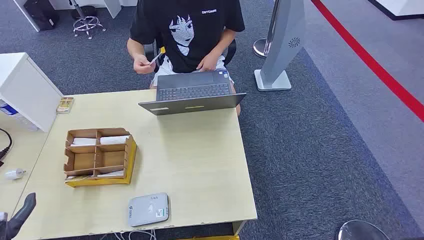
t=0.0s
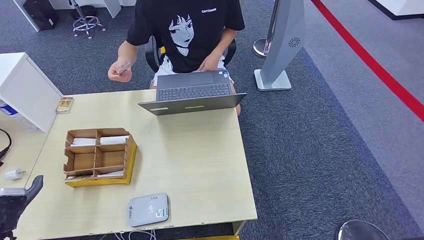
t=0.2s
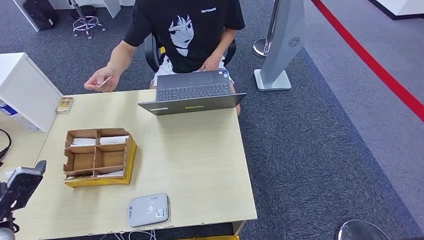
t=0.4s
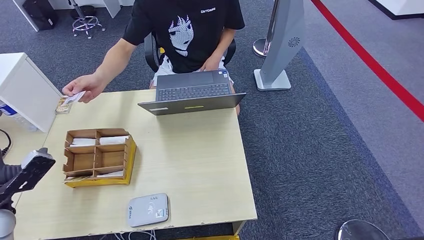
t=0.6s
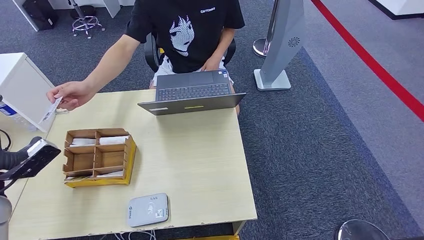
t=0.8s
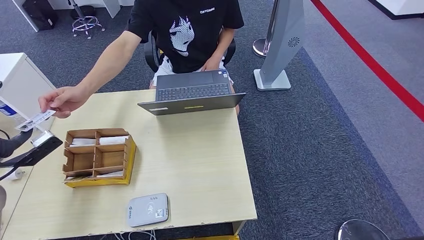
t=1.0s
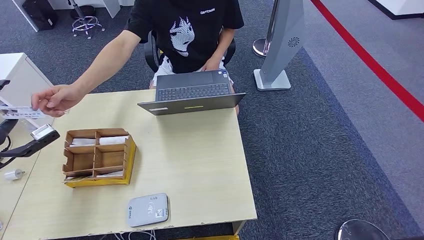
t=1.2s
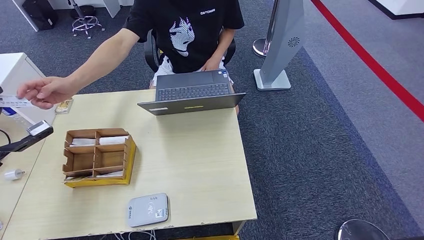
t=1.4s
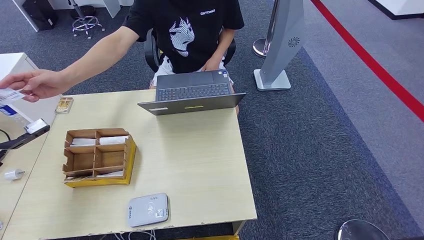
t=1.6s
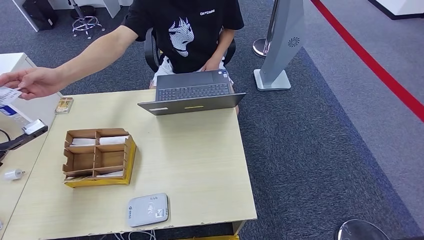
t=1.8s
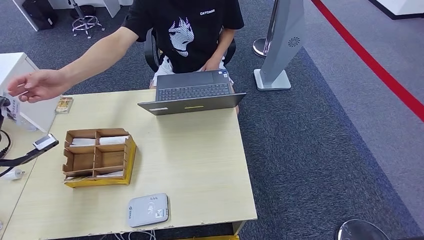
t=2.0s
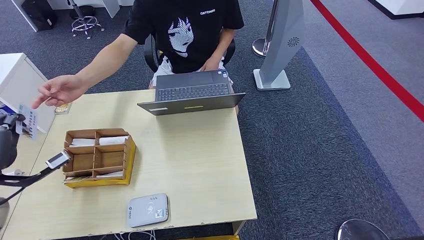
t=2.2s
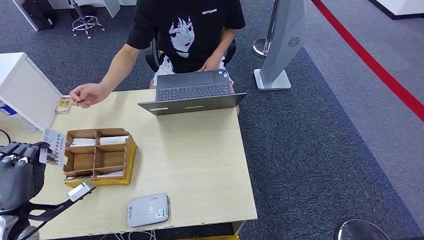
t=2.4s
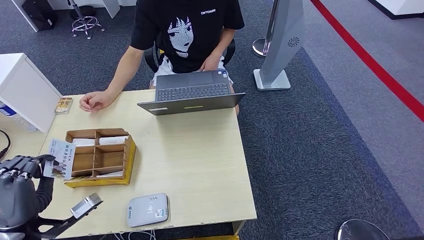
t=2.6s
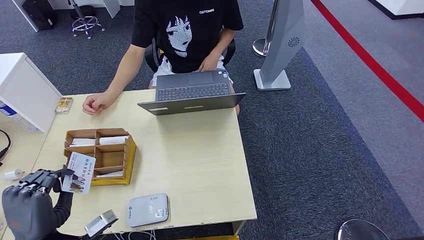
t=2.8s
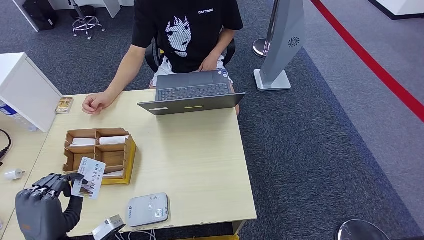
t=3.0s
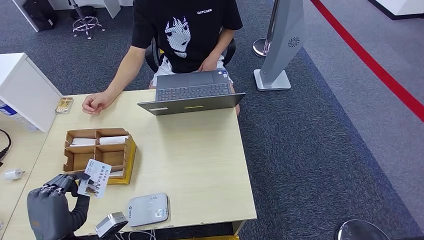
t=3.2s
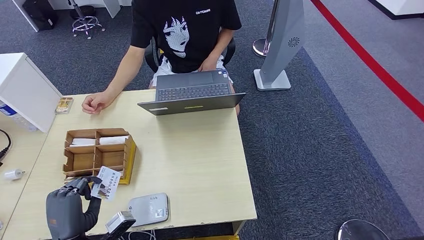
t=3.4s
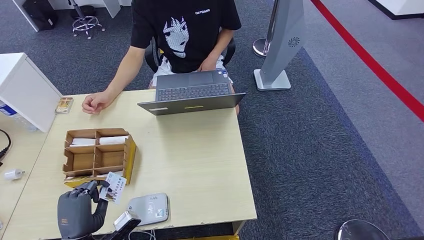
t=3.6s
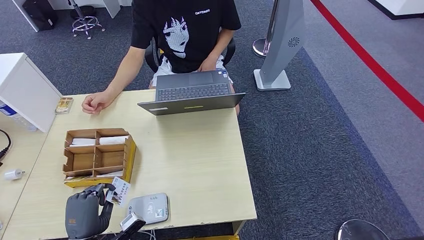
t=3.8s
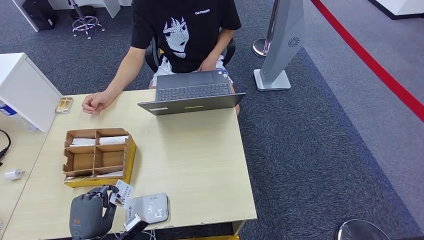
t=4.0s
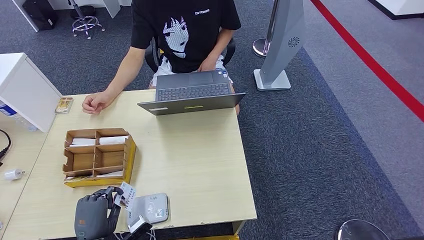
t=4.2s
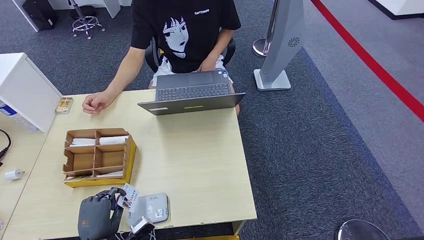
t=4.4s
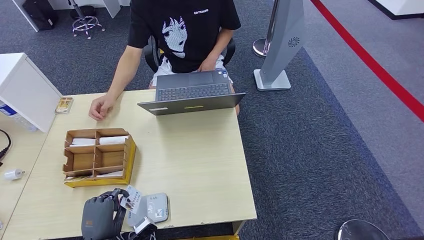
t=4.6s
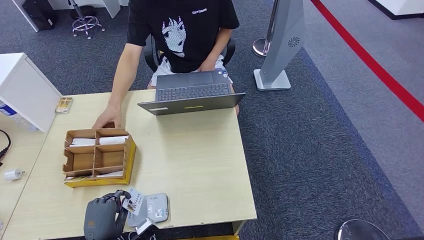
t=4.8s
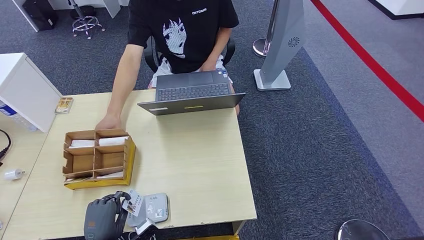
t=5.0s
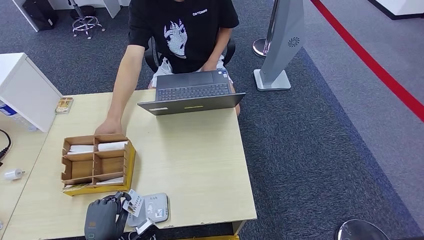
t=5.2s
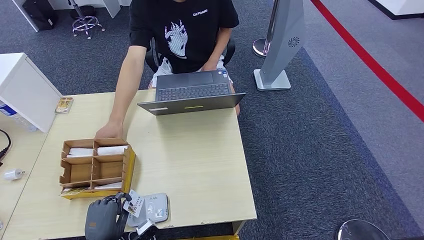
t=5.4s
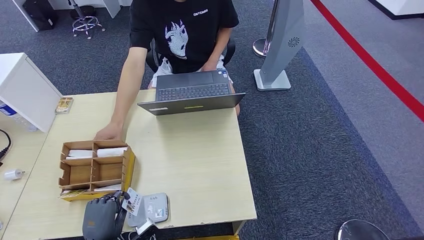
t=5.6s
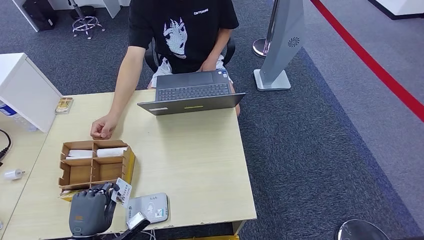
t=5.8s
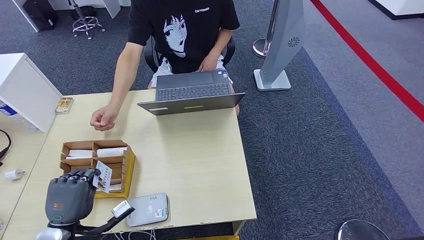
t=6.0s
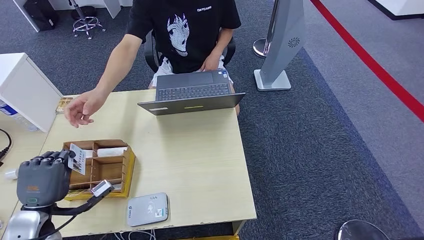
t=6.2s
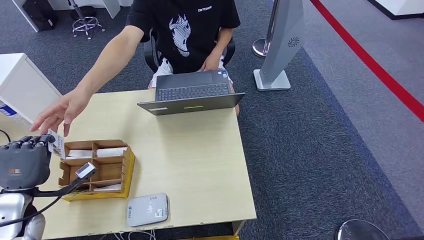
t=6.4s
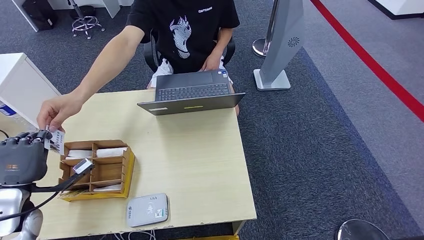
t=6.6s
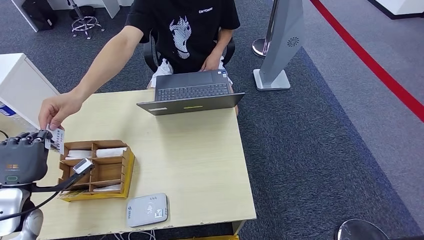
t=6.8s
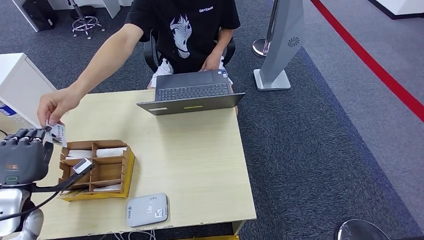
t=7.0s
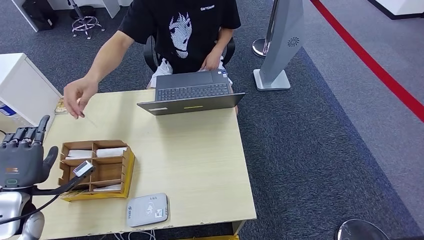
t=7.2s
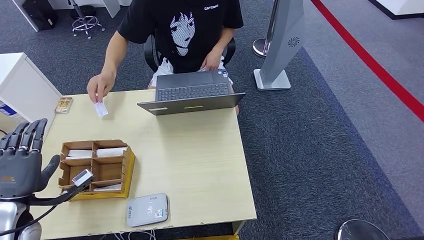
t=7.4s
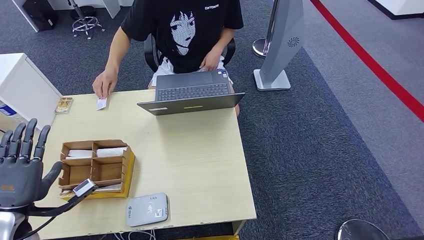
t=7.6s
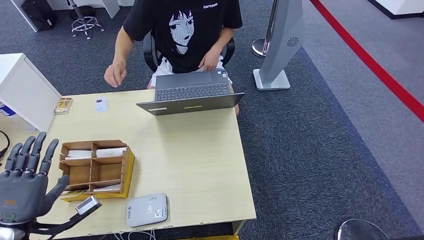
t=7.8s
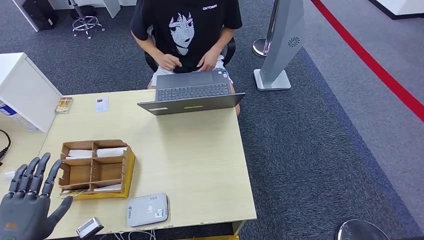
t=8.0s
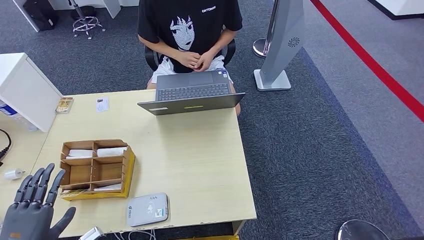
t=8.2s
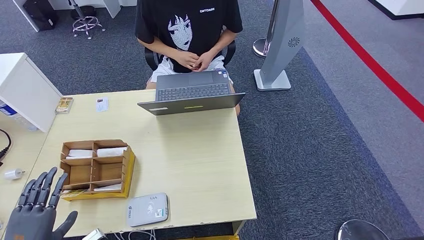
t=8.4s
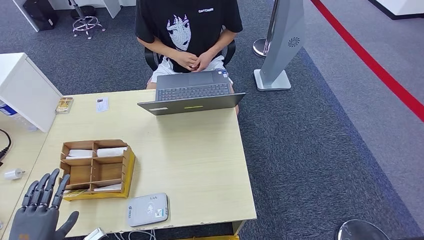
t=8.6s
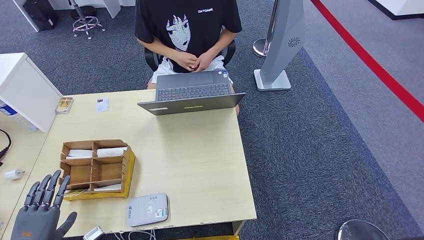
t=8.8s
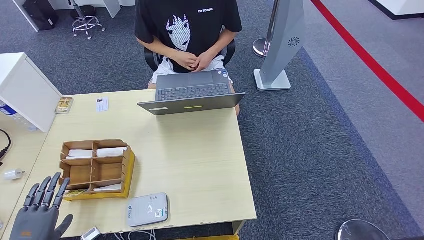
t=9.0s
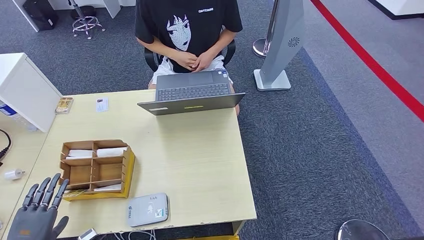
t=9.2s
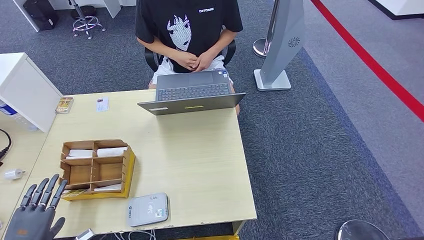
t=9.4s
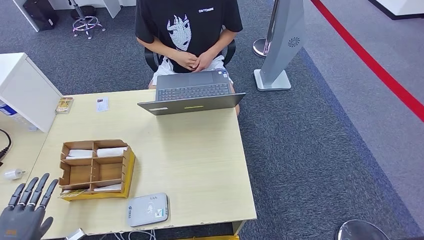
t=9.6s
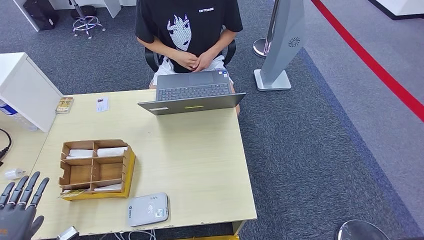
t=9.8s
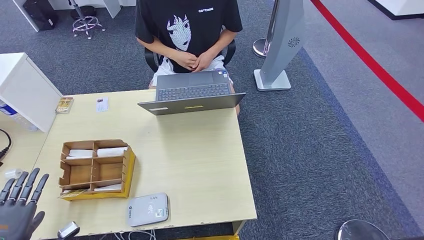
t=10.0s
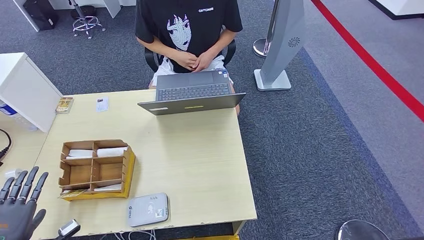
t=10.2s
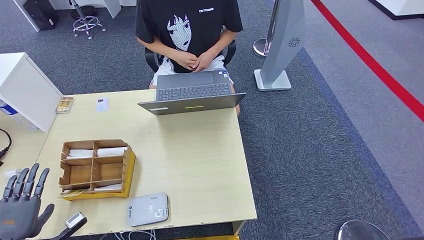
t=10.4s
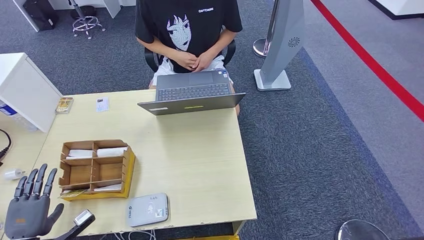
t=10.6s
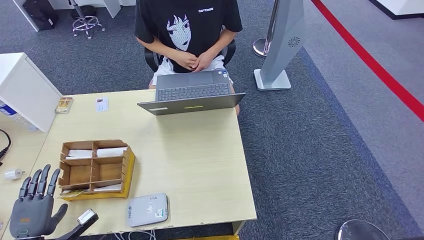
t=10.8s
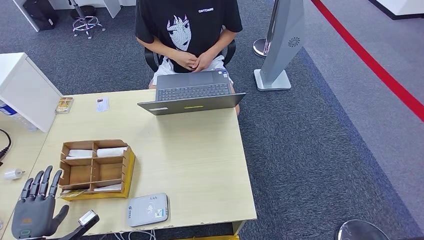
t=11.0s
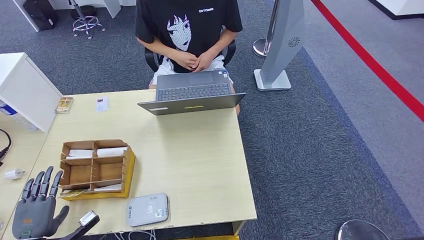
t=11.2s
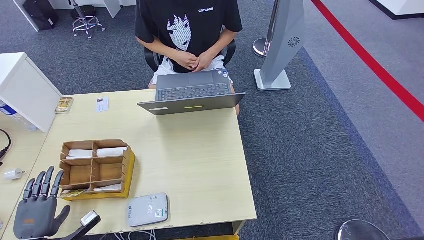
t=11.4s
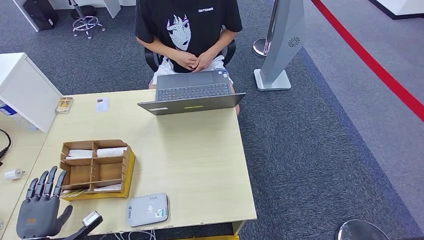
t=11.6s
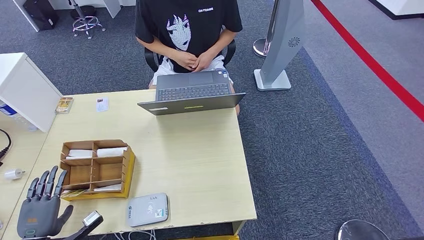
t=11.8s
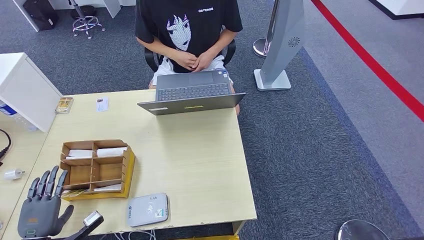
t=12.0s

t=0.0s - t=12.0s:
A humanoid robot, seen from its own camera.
Step, t=0.0s - t=3.2s: Take the ID card from the person's hand.
Step, t=3.4s - t=6.4s: Place the ID card on the card reader.
Step, t=6.6s - t=8.6s: Hand the ID card to the person.
t=1.6s - t=3.0s: The left hand shifts roughly 30 cm to the right, backward and downward.
t=3.0s - t=4.4s: The left hand goes about 10 cm downward.
t=4.4s - t=6.0s: The left hand moves upward, about 5 cm.
t=6.0s - t=7.6s: The left hand is displaced to the left and upward by about 10 cm.
t=7.6s - t=9.0s: The left hand shifts about 15 cm downward and backward.
t=9.0s - t=10.4s: The left hand shifts by some 5 cm.
t=10.4s - t=12.0s: The hands move only a little.

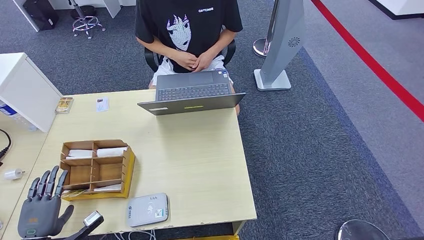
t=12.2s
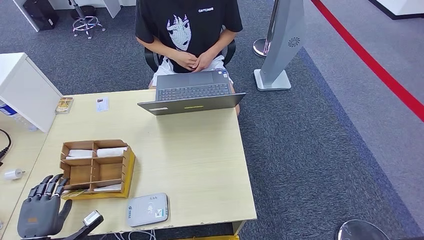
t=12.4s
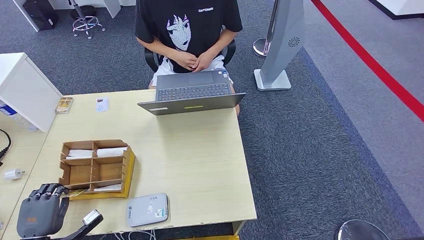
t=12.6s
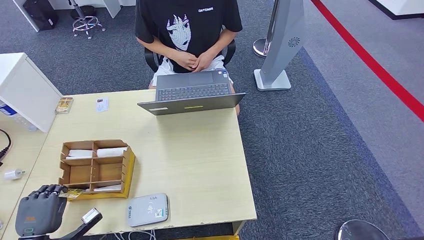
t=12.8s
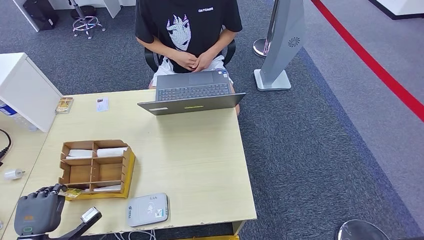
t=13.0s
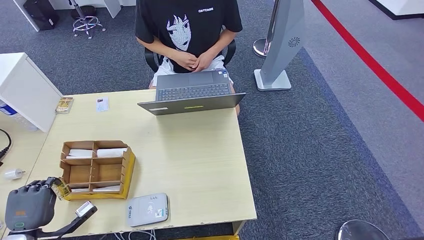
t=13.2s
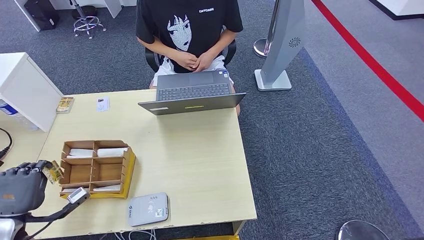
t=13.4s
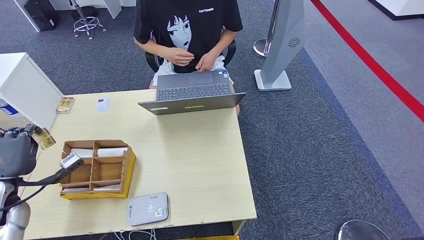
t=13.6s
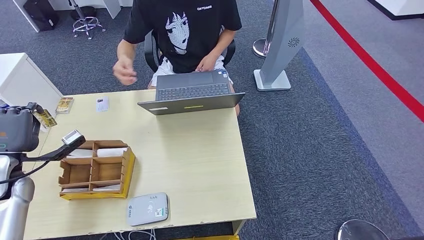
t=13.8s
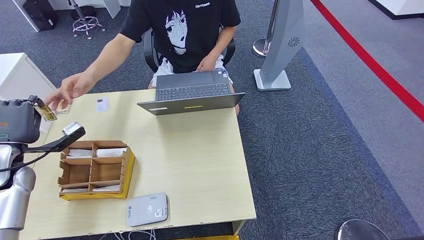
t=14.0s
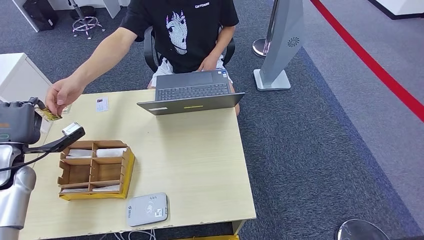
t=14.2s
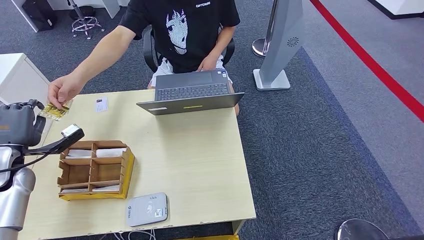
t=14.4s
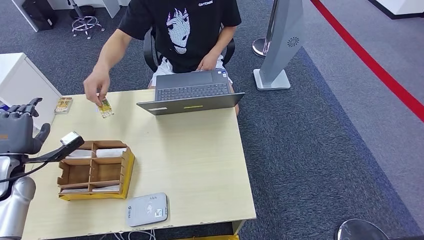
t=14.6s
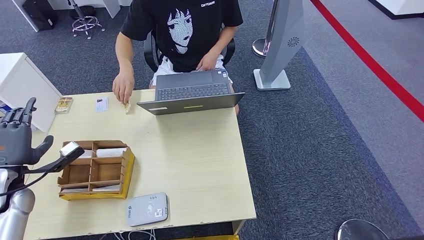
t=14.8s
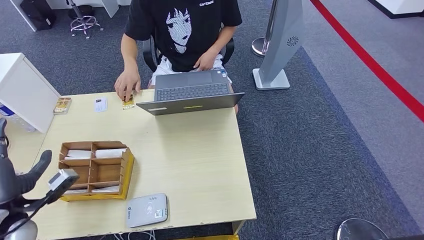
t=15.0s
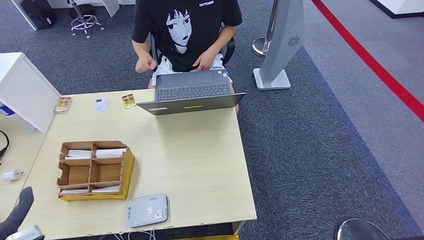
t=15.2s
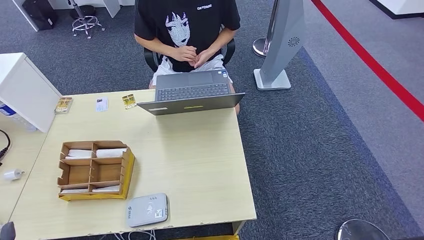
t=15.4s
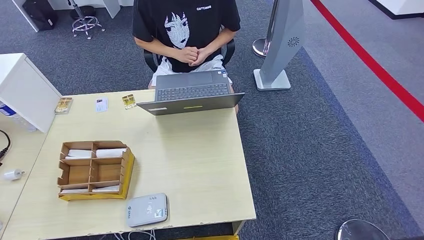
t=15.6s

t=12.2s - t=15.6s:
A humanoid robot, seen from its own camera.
Step, t=13.8s - t=15.6s: Hand the room key to the person.
t=12.2s - t=13.8s: The left hand shifts roughly 25 cm upward and forward.
t=13.8s - t=15.6s: The left hand moves backward and downward, roughly 30 cm.
